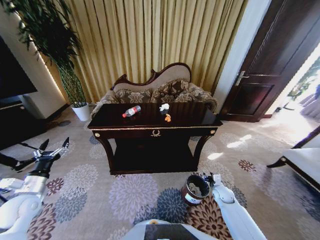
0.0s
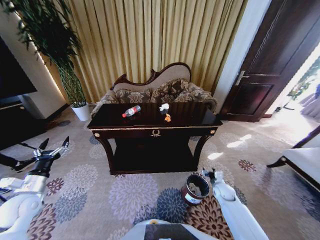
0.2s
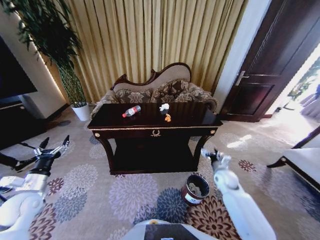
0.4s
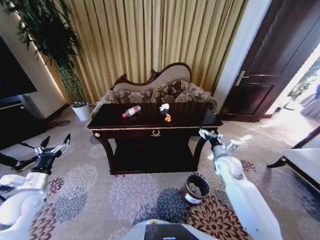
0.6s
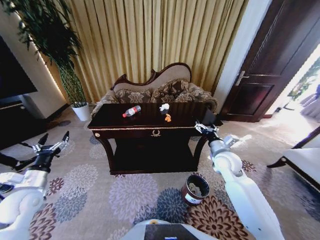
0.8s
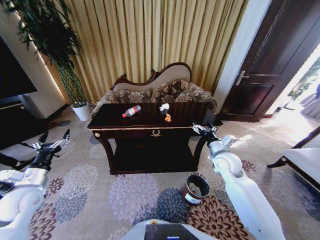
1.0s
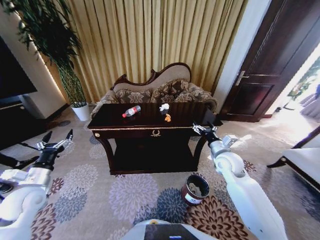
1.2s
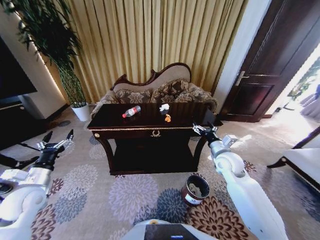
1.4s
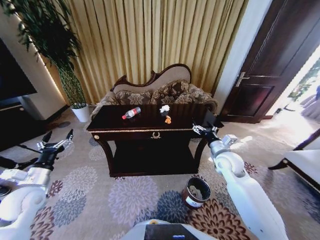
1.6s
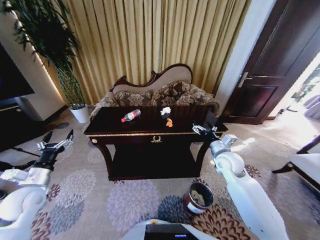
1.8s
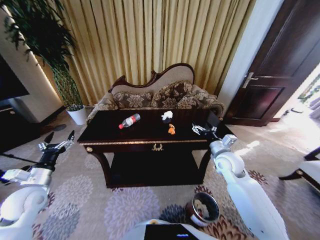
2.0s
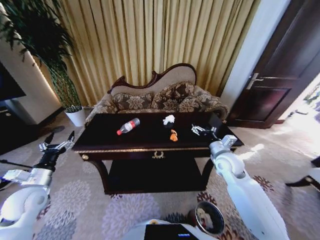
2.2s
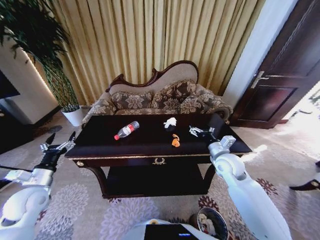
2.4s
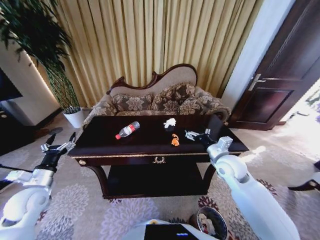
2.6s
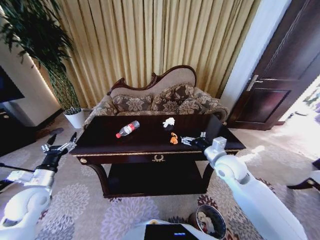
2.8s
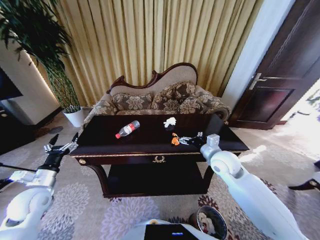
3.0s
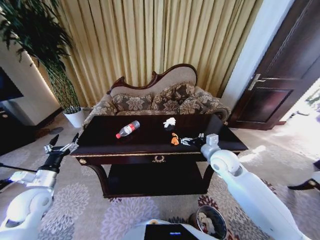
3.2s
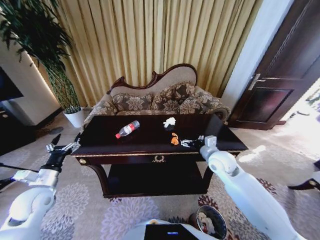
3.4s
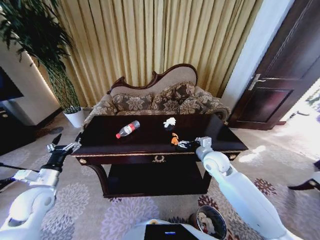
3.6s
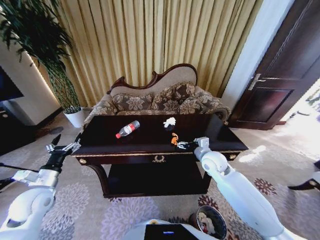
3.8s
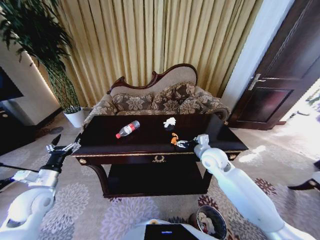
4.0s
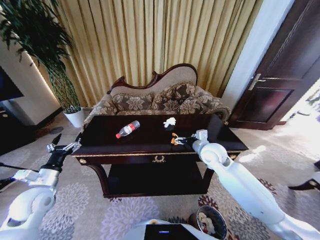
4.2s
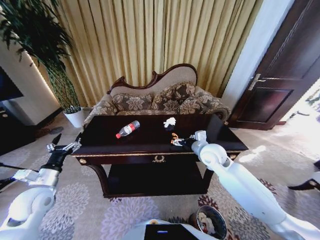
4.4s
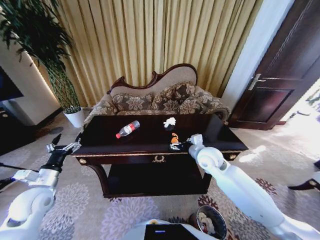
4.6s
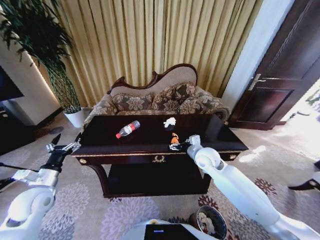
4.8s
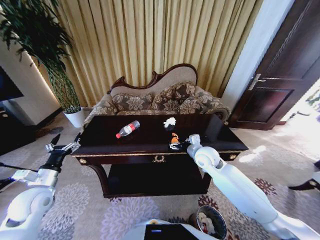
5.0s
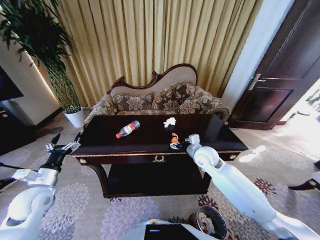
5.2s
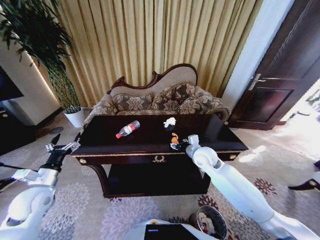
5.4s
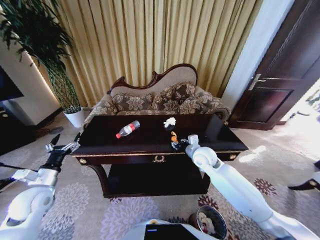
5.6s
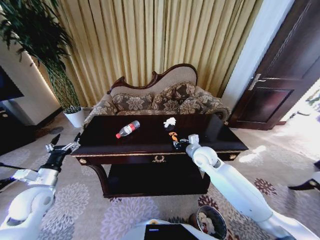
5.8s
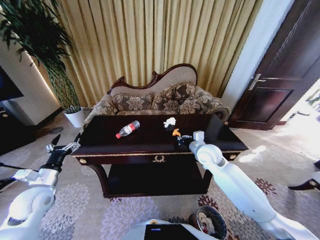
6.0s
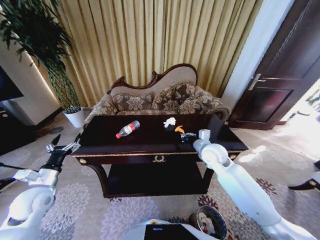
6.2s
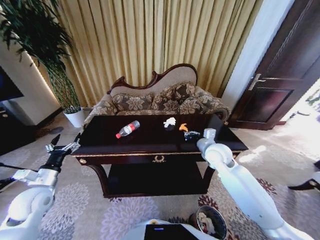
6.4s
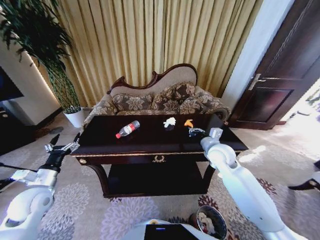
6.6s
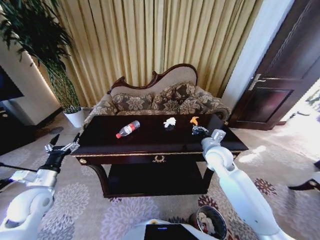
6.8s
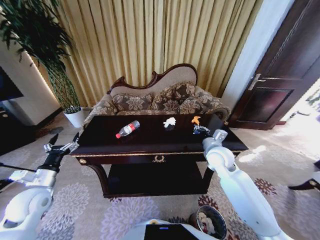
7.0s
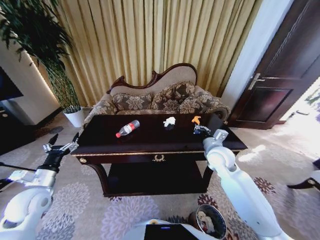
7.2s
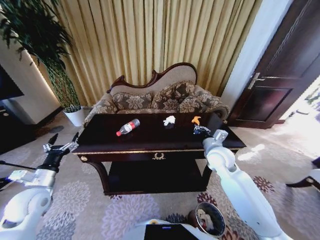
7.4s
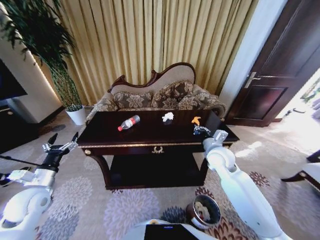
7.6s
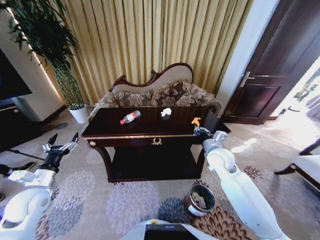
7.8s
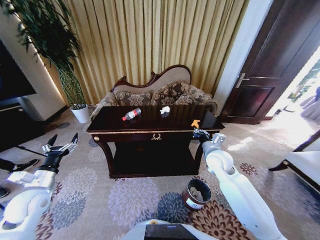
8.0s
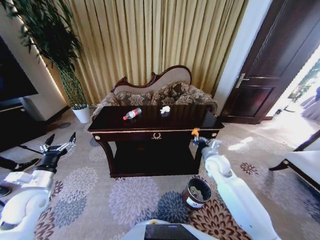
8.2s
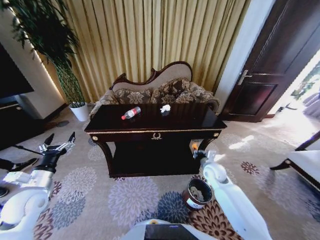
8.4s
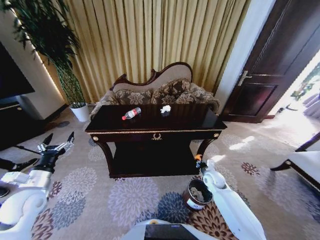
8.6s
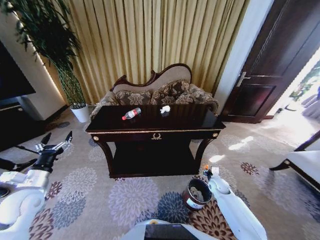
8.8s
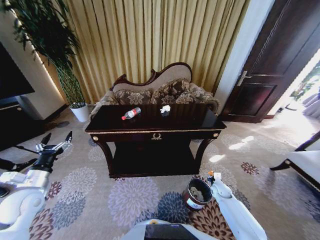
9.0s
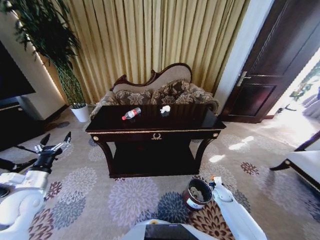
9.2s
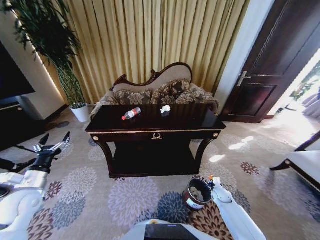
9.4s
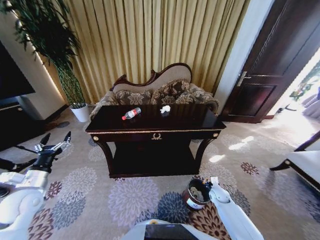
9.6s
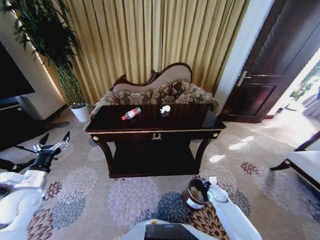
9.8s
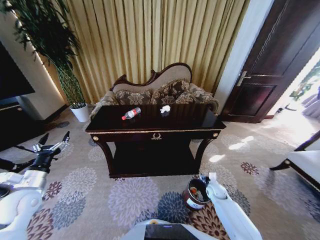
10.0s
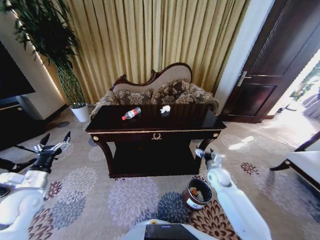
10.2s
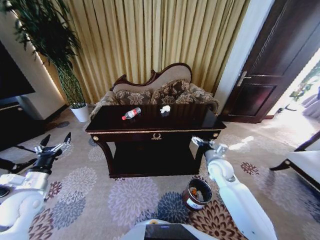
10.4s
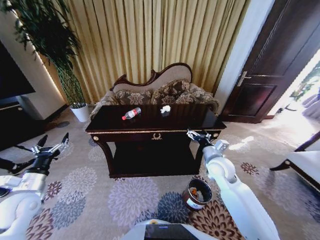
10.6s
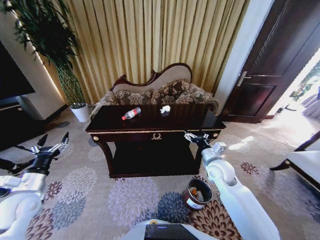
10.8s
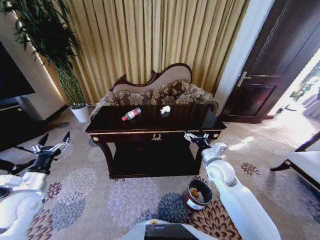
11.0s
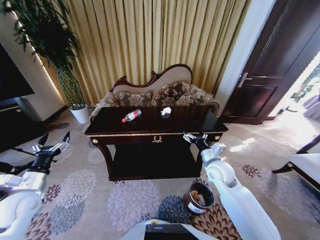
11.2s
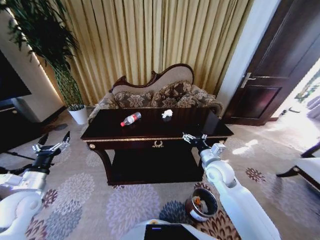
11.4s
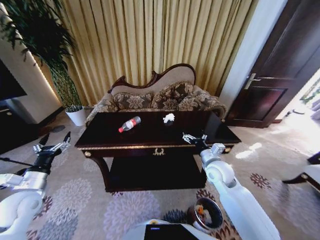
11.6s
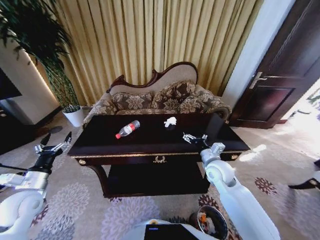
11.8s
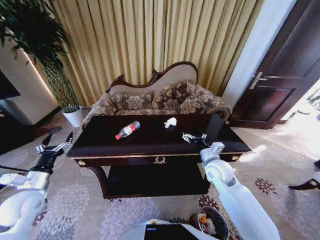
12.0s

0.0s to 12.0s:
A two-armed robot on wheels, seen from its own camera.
Task of the whole recording: Move to the front of the table and place the trash on the table into the trash bin.
0.0s to 1.6s: The right gripper is displaced upward by some 25 cm, and opens up.
3.0s to 4.4s: There are only small adjustments of the grippers.
4.4s to 6.0s: The right gripper closes.
7.6s to 9.0s: The right gripper travels downward and to the right by approximately 30 cm.
9.0s to 10.4s: The right gripper shifts about 25 cm upward and to the left, and opens up.
10.4s to 12.0s: The right gripper ends up about 5 cm from where it was.

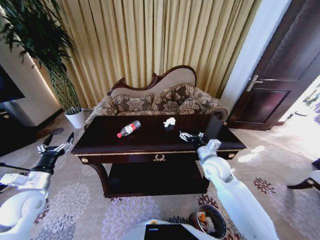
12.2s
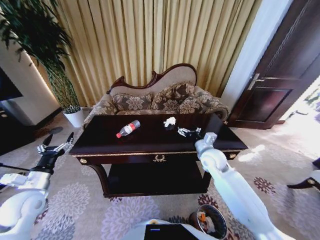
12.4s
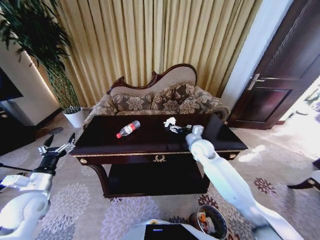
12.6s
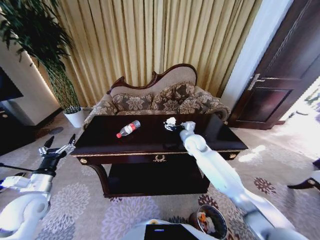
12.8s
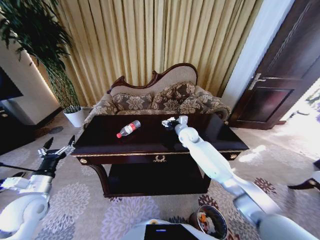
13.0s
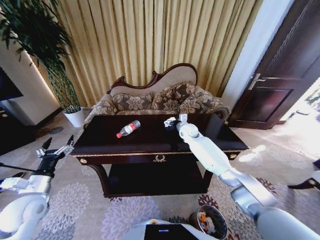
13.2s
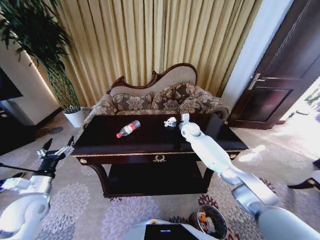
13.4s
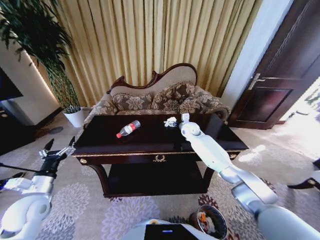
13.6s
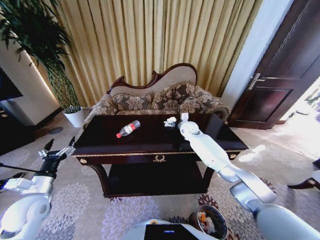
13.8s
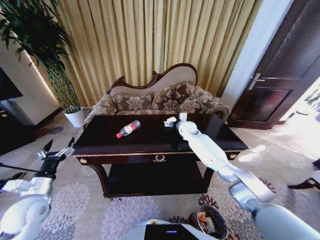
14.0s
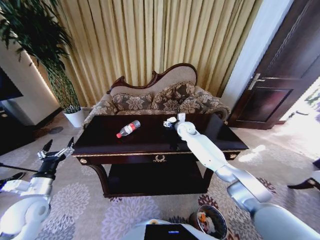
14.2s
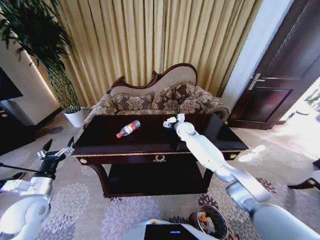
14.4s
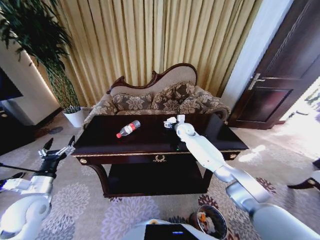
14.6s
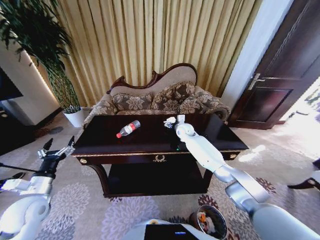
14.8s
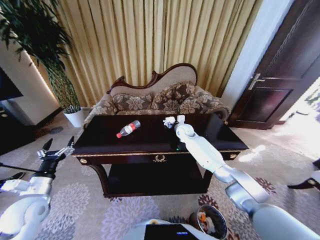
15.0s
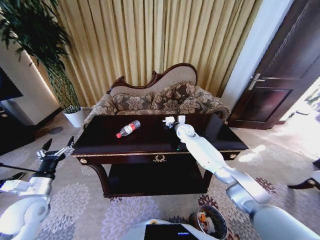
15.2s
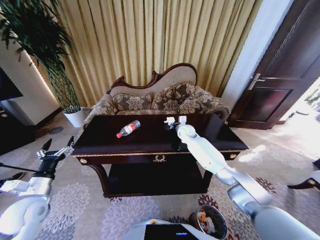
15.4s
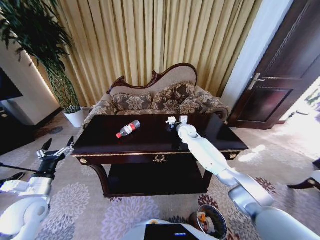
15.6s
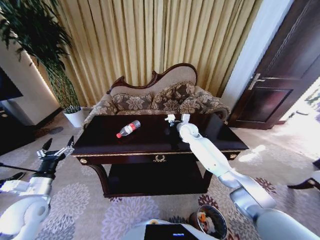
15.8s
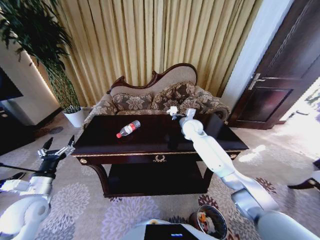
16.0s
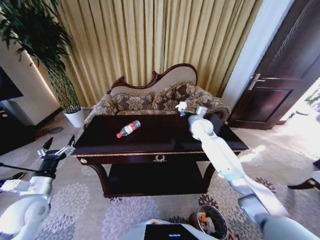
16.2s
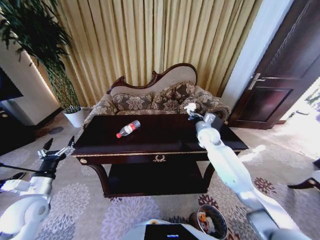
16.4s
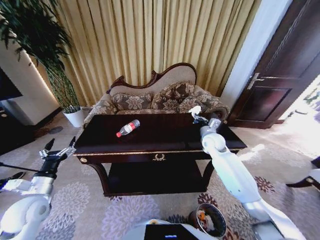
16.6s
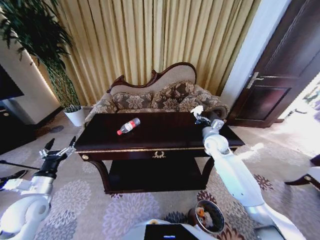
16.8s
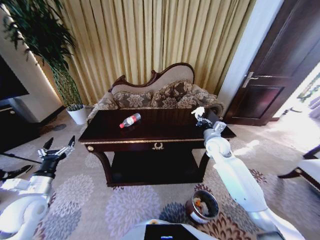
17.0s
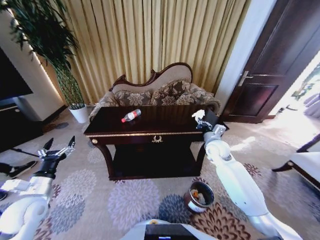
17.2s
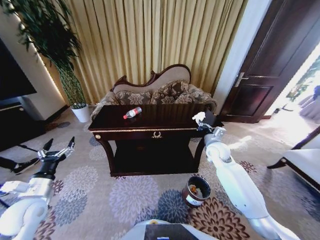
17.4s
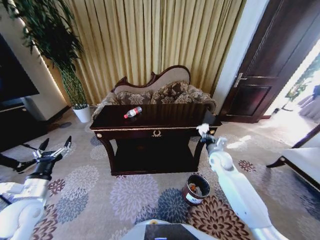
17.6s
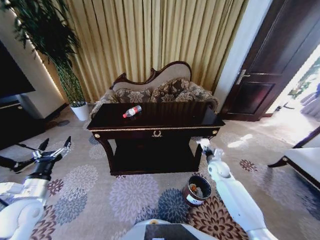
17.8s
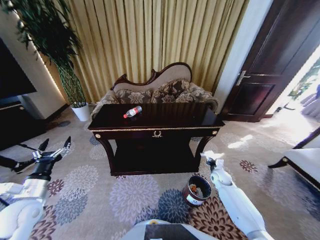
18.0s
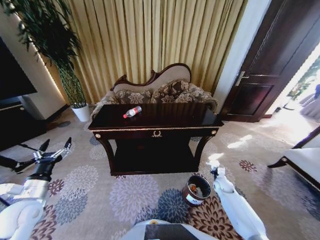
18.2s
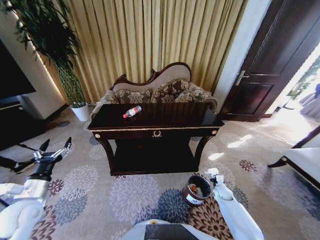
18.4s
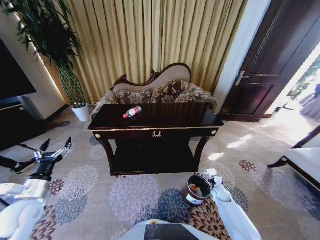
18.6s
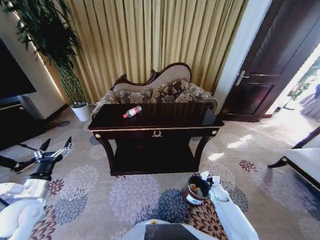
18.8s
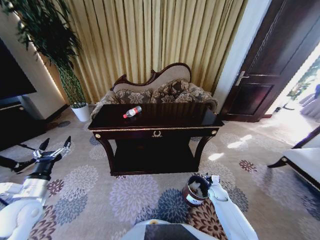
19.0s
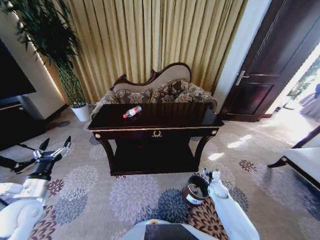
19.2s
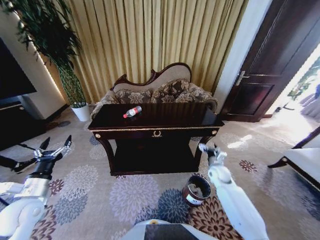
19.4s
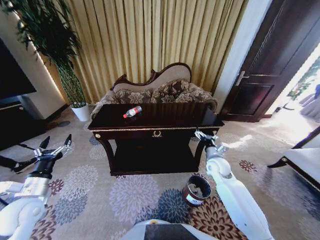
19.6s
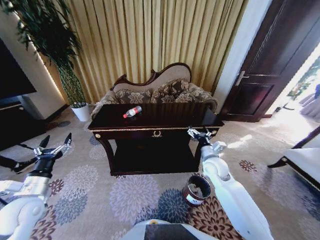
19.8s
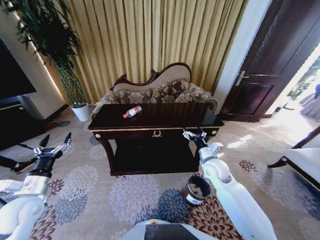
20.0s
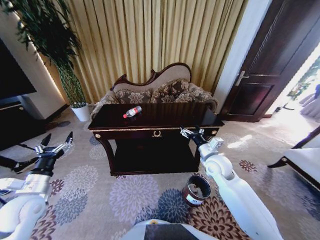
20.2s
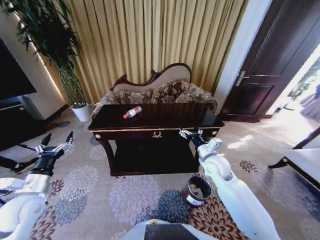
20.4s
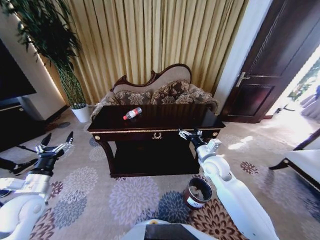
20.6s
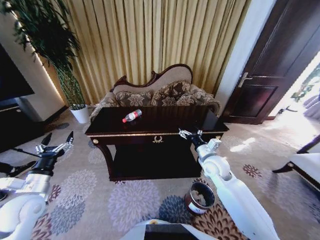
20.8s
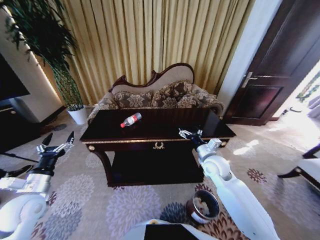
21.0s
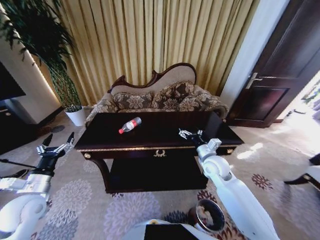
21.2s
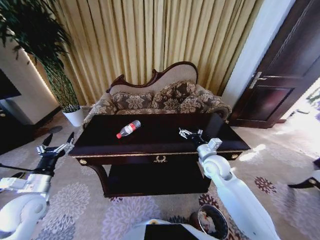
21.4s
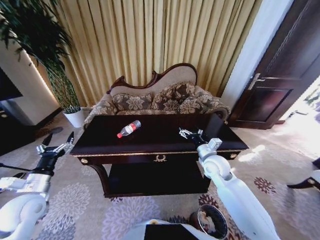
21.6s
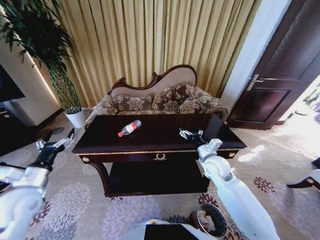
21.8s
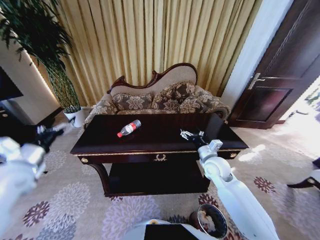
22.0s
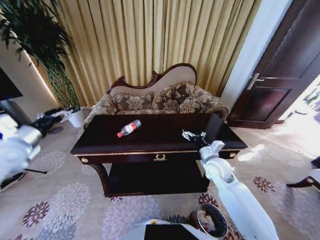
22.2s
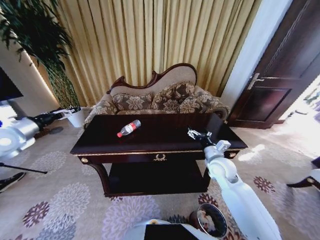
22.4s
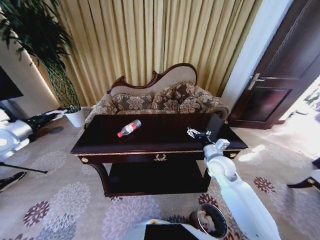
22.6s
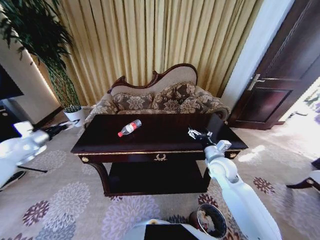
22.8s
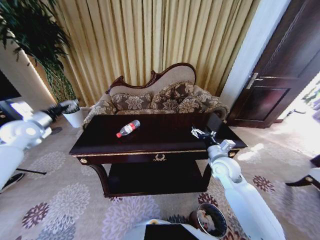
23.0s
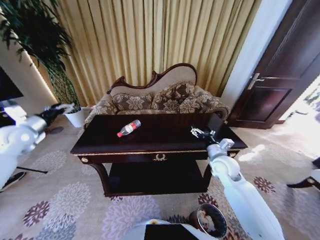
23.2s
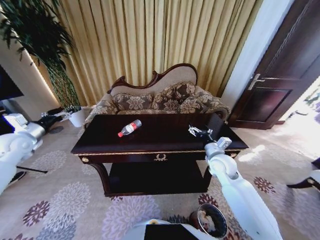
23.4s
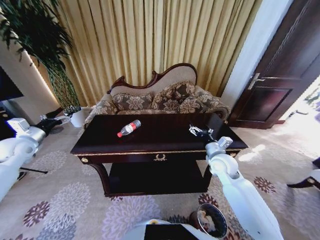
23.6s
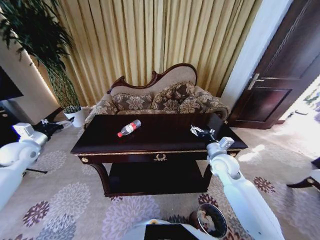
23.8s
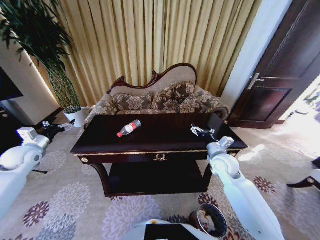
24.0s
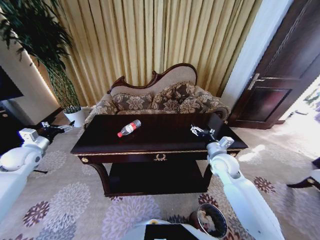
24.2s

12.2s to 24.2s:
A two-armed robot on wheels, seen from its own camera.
Task of the whole recording: Move to the front of the table and place the trash on the table into the trash bin.
12.2s to 13.8s: The right gripper shifts approximately 25 cm forward.
13.8s to 15.2s: The right gripper closes its fingers.
15.2s to 16.6s: The right gripper is displaced backward and to the right by some 15 cm, and closes up.
16.6s to 18.2s: The right gripper travels downward, to the right and backward by roughly 30 cm.
18.2s to 19.8s: The right gripper is displaced upward and to the left by approximately 25 cm, and opens.
21.2s to 22.6s: The left gripper heads forward, upward and to the left, covering roughly 25 cm.
22.6s to 24.2s: The left gripper goes up and down, roughly 10 cm each way, reversing 2 times.
